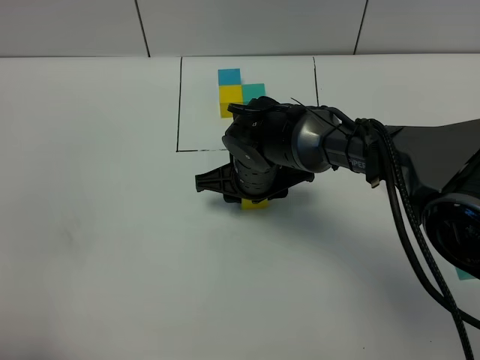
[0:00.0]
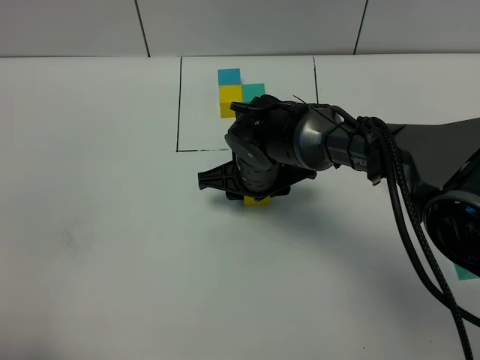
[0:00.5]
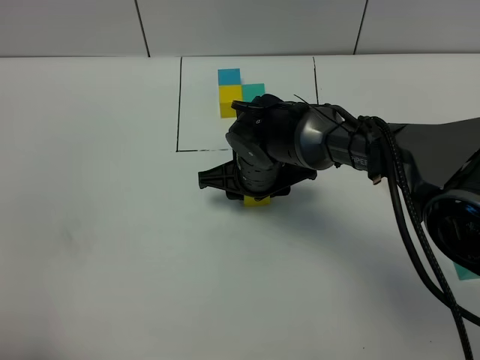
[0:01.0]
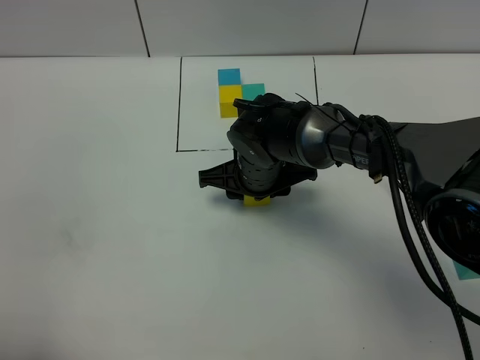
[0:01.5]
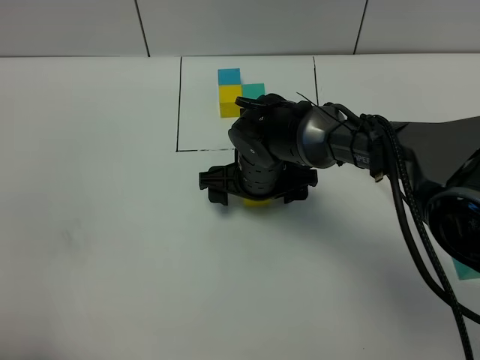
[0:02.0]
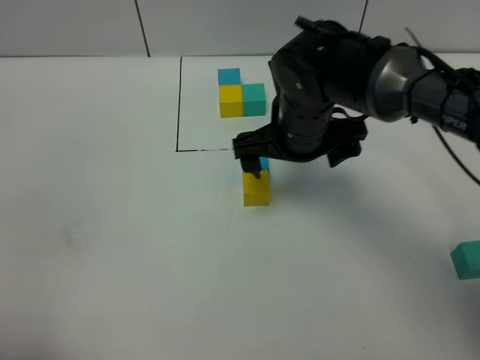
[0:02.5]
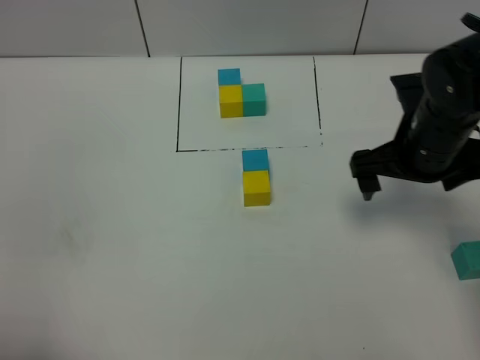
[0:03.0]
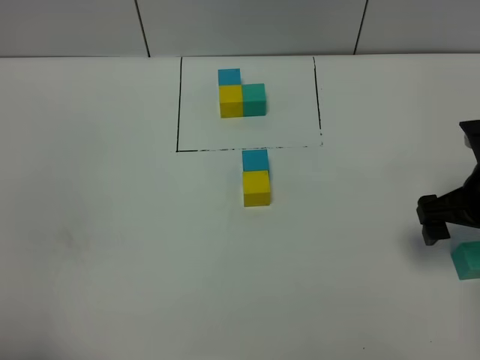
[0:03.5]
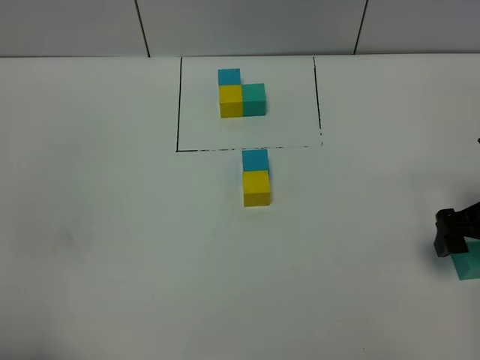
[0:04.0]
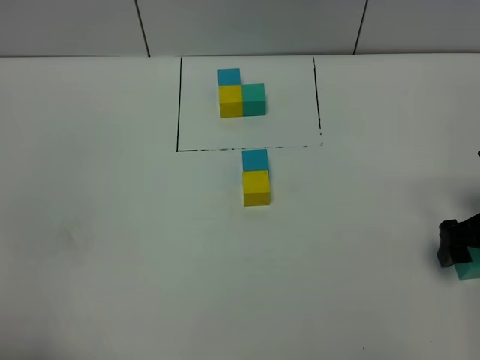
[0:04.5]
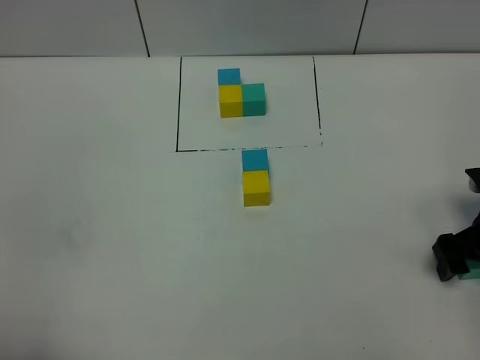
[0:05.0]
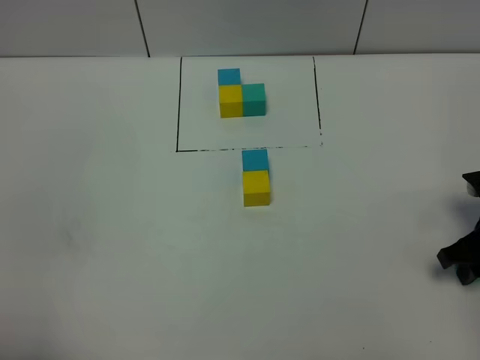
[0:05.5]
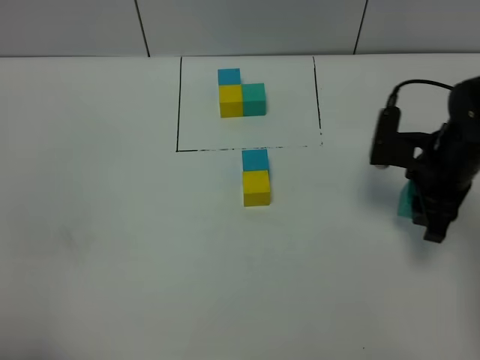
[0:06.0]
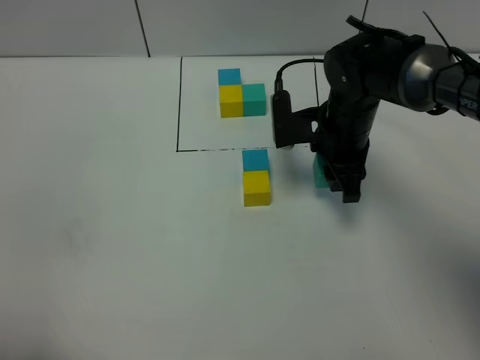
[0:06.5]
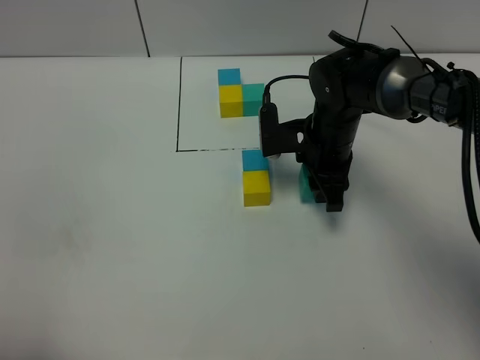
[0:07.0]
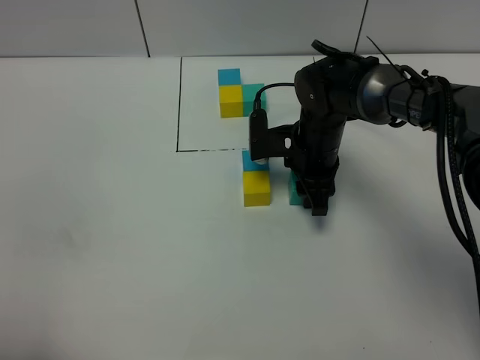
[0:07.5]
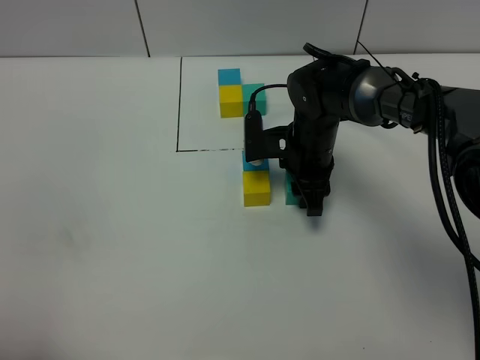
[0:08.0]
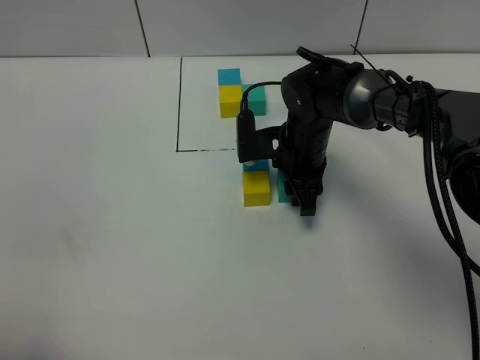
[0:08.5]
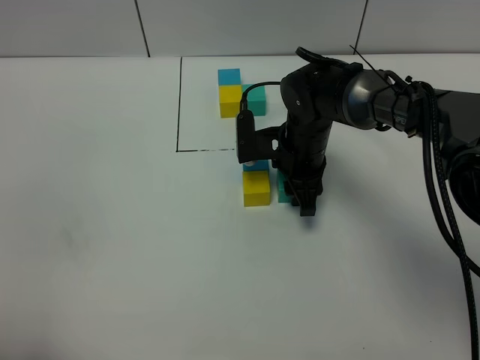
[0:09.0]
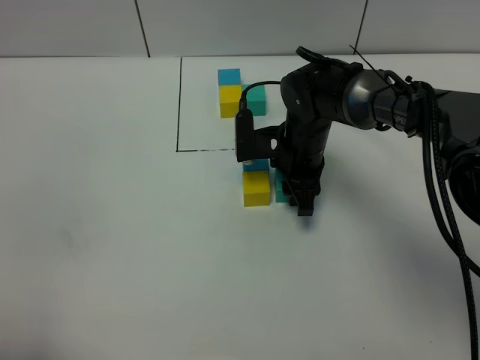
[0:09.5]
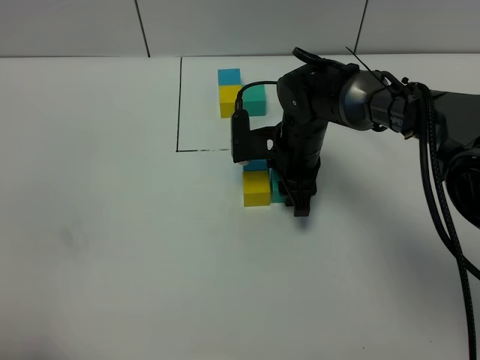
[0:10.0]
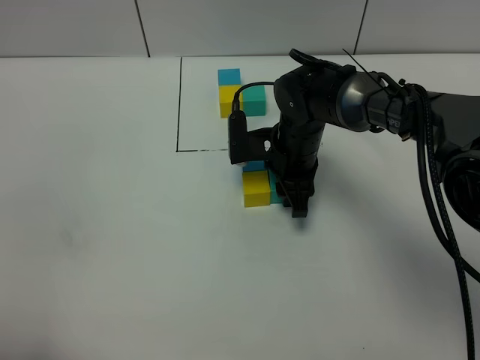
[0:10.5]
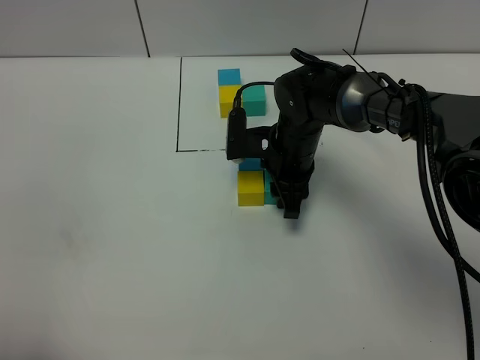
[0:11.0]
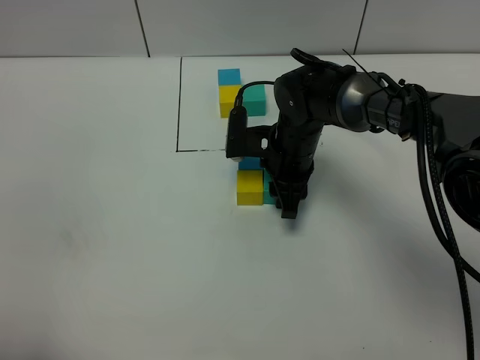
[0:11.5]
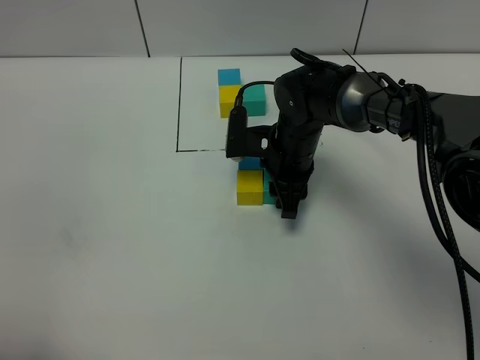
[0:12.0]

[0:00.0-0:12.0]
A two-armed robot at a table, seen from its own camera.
Task of the whole recording: According to the building block template in front, assemble the scattered blocks together.
Step, 0:02.0 to 0:11.5: Put the right build block on the right of the yellow build block.
0:00.0 to 0:02.0: The right gripper opens its fingers.
0:02.0 to 0:04.0: The right gripper moves to the right, some 30 cm.
0:04.0 to 0:06.0: The right gripper moves to the left and forward, about 10 cm, and closes.
0:06.0 to 0:08.0: The right gripper travels to the left, forward and downward by some 15 cm.
0:08.0 to 0:12.0: The grippers stay close to where they were, moving slightly.

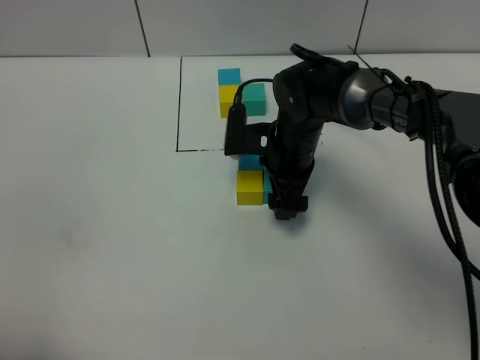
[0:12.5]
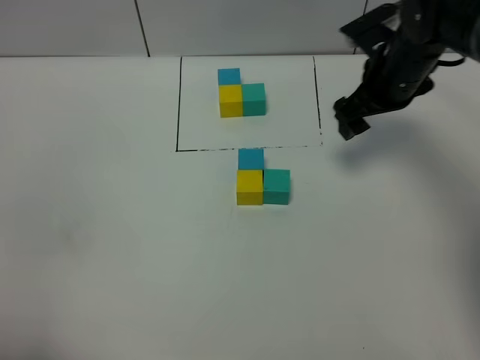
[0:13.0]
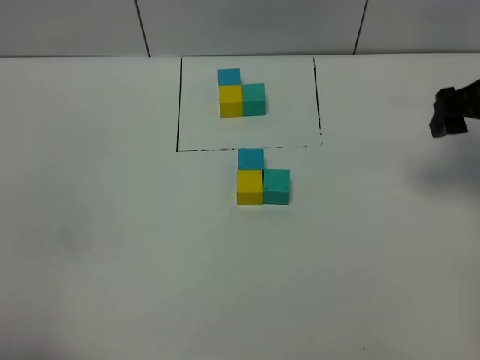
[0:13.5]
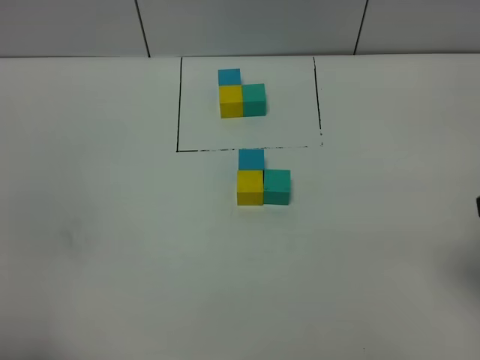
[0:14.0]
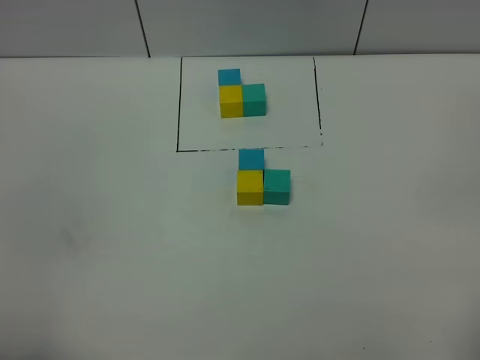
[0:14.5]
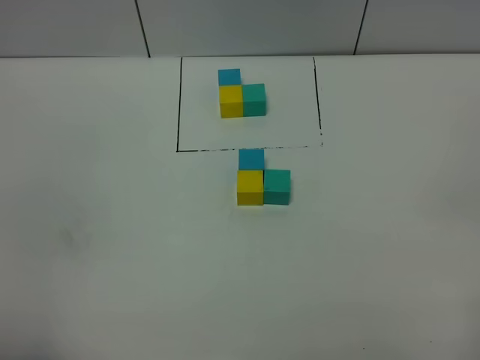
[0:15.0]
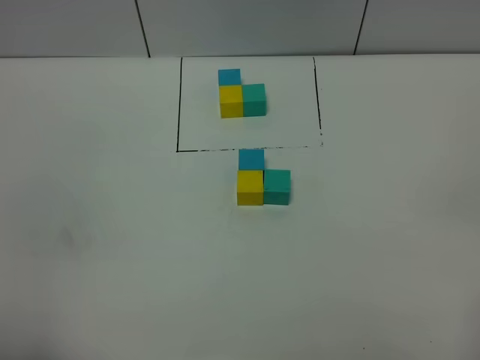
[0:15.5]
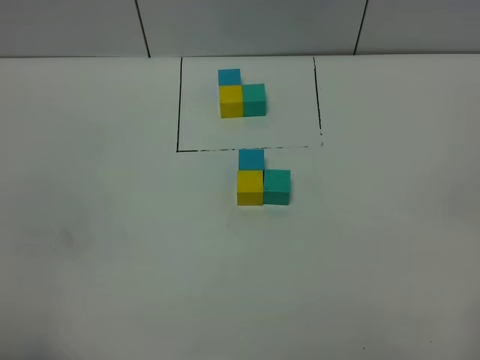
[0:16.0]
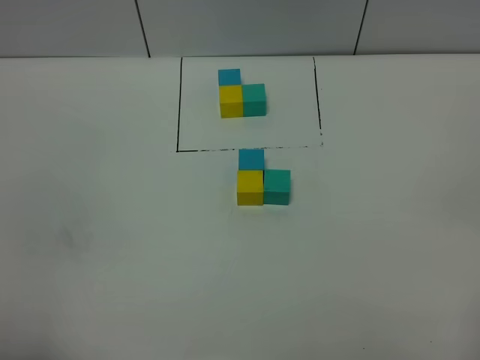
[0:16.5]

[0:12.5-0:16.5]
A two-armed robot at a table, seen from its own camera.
Task of the whole recording: According to the building block template in front, assemble the scattered blocks together.
0:12.5 to 0:14.5: The right gripper travels backward, to the right and upward by some 40 cm.
